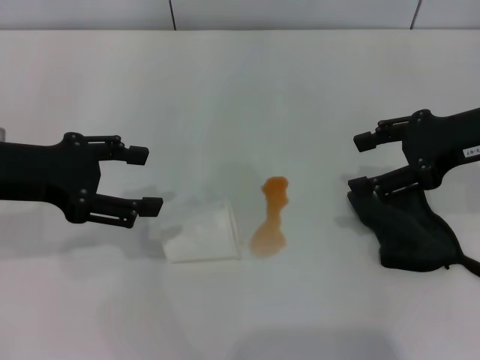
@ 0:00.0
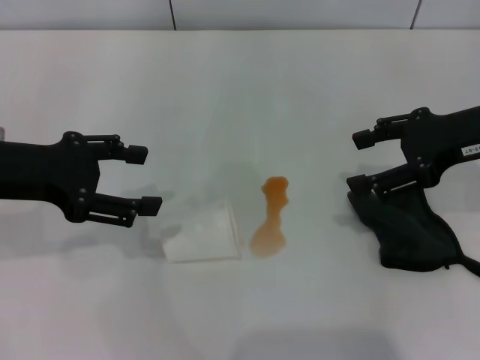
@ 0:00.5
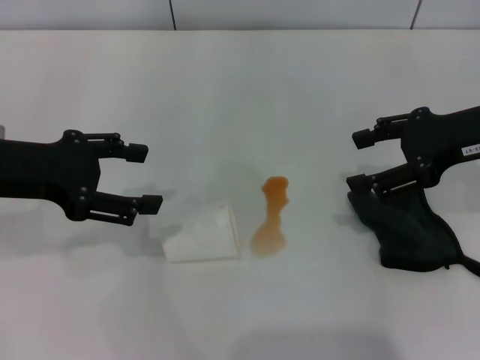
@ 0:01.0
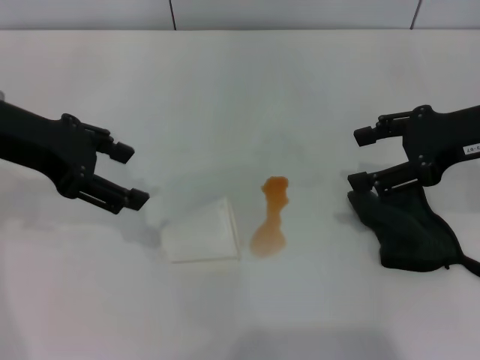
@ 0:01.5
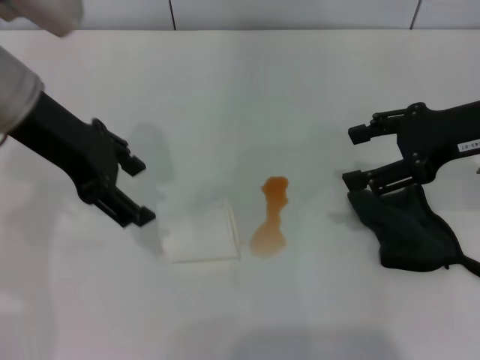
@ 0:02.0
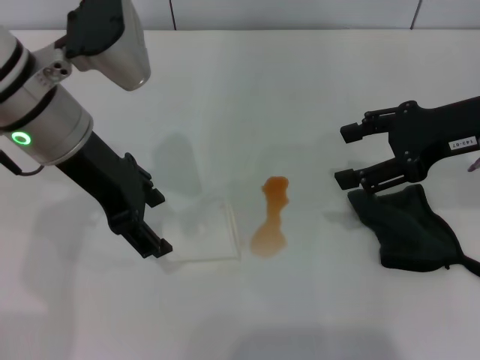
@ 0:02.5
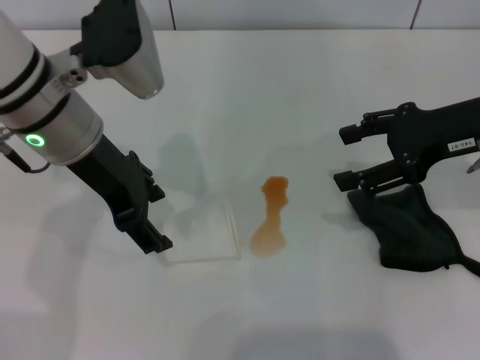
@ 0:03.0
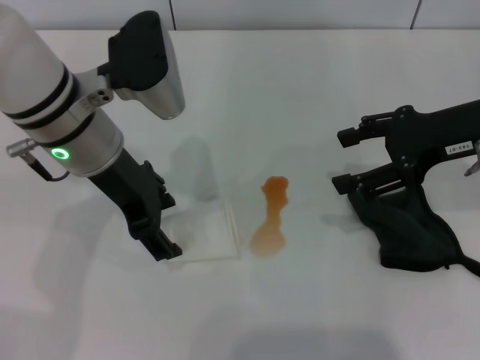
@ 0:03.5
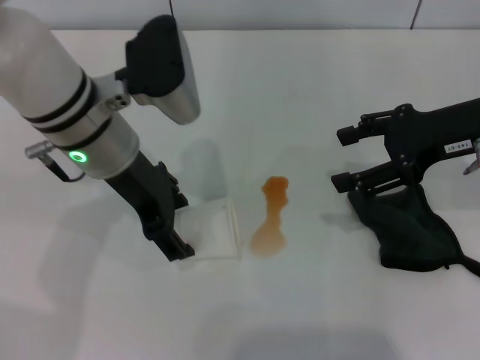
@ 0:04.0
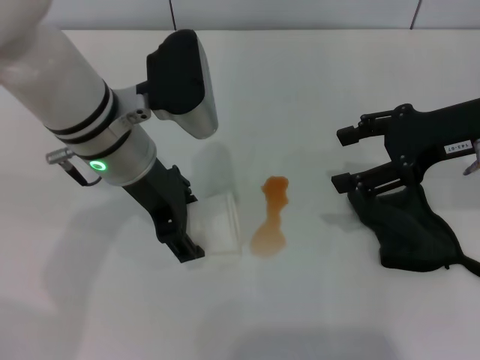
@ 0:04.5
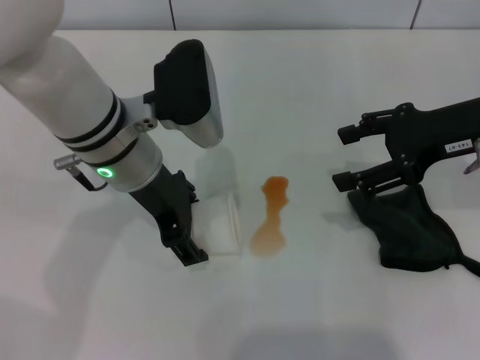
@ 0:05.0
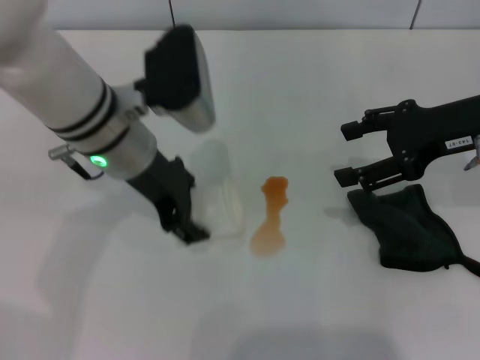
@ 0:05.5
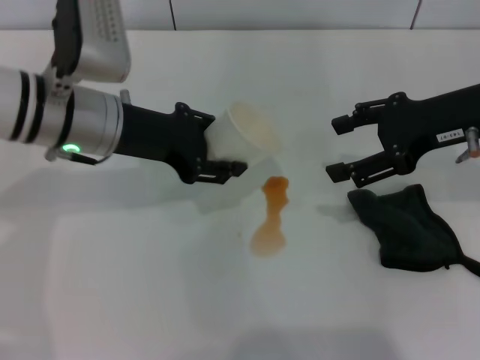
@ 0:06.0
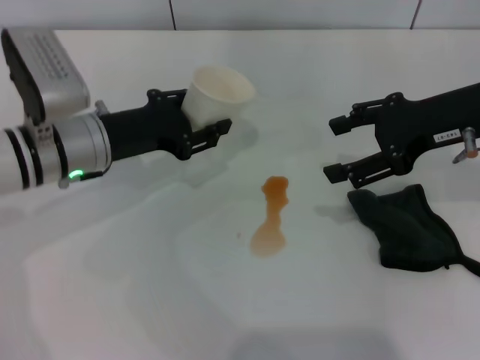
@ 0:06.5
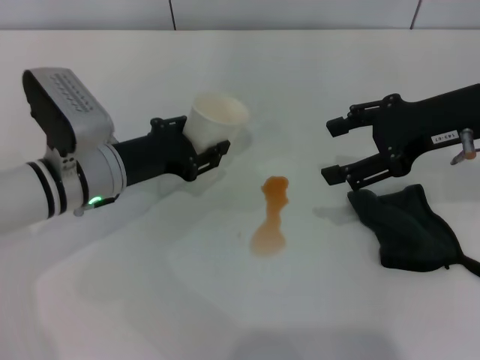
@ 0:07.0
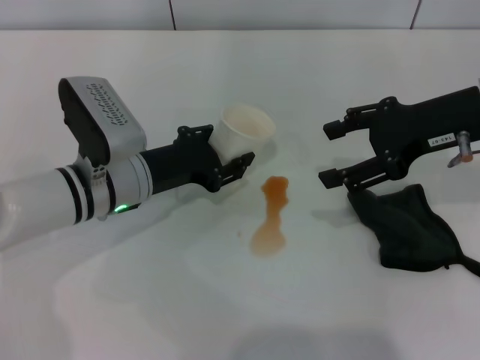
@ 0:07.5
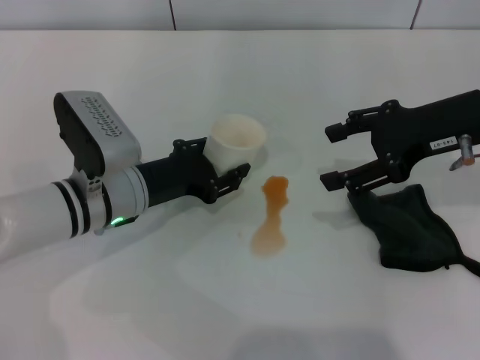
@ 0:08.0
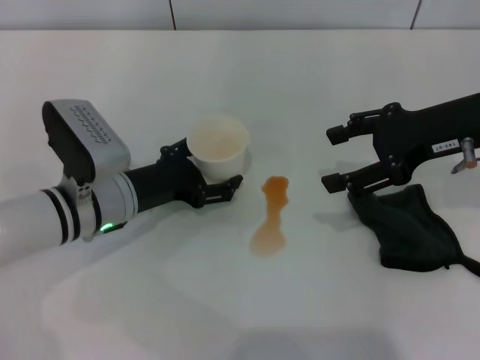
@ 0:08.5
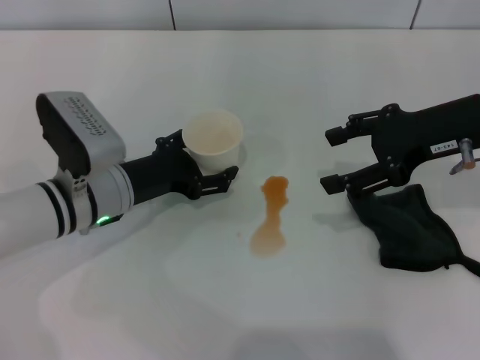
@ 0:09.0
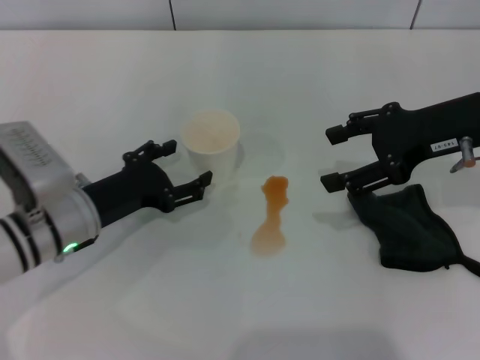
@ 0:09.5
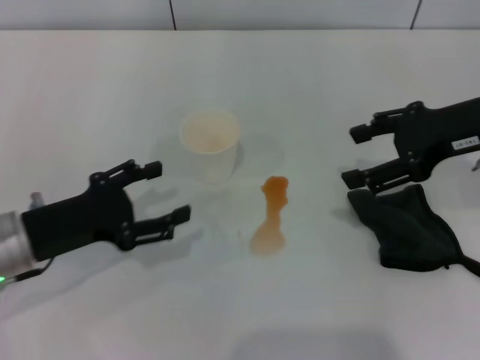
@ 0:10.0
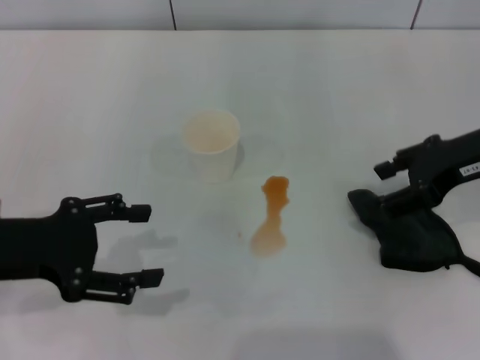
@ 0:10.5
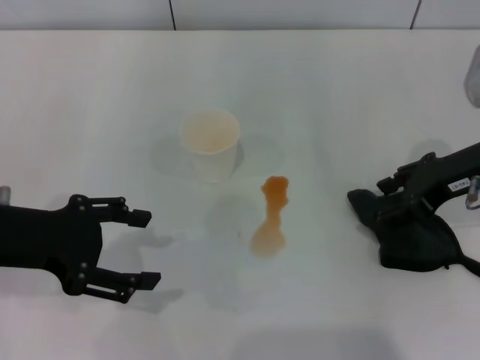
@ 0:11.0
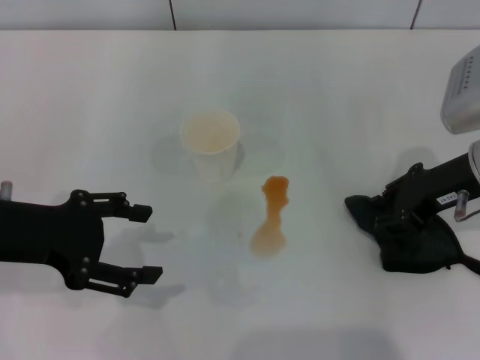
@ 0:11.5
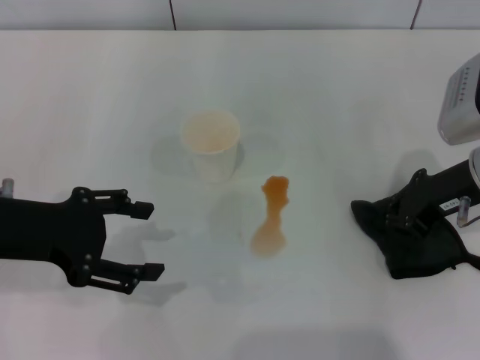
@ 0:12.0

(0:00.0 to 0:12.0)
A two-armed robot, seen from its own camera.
Step, 0:00.0 - 0:05.0: Grasp the paper cup with the left gripper.
Step, 0:05.5 - 0:09.5: Stand the paper cup upright with the left gripper.
Step, 0:10.0 - 0:11.5: Grasp the rag with the right gripper.
0:00.0 - 0:02.0: The left gripper moves to the right and upward, approximately 10 cm.
0:02.0 - 0:04.0: The left gripper travels to the right and downward by some 10 cm.
0:04.0 - 0:06.0: The left gripper closes its fingers.
0:06.0 - 0:08.0: The left gripper goes some 10 cm downward.
0:08.0 - 0:10.0: The left gripper goes about 10 cm to the left and backward, and opens.
0:10.0 - 0:12.0: The left gripper shifts roughly 10 cm upward; the right gripper heads downward, covering about 5 cm, and closes up.

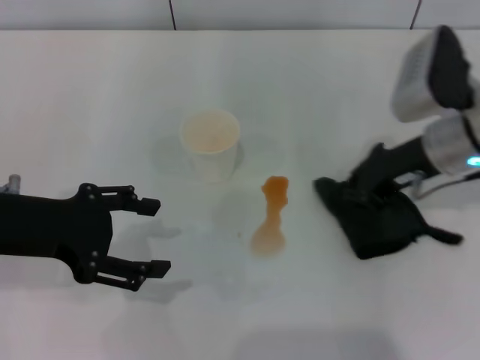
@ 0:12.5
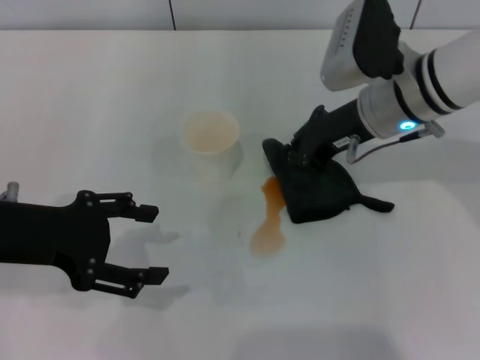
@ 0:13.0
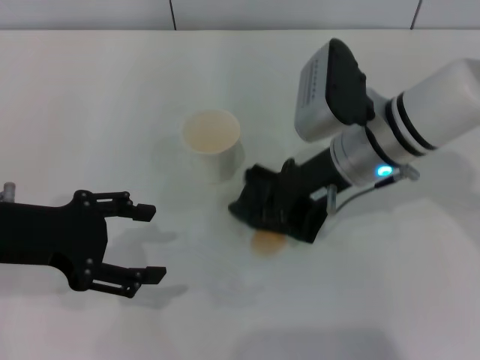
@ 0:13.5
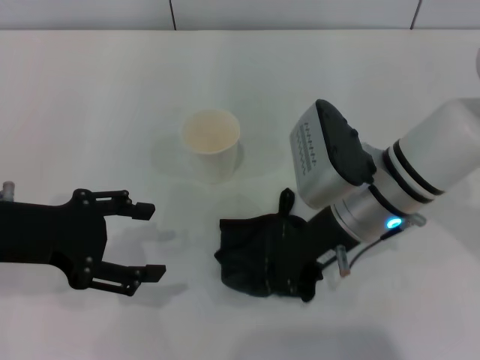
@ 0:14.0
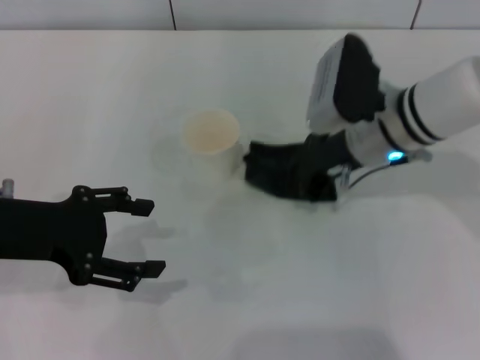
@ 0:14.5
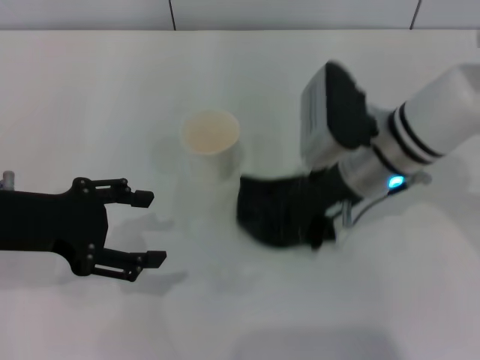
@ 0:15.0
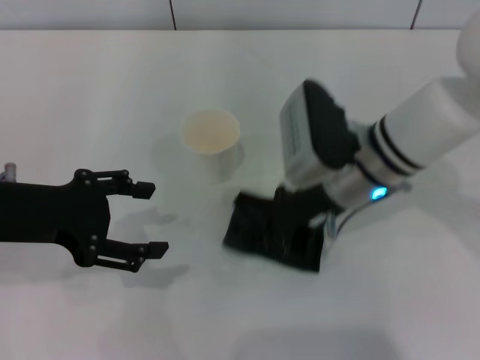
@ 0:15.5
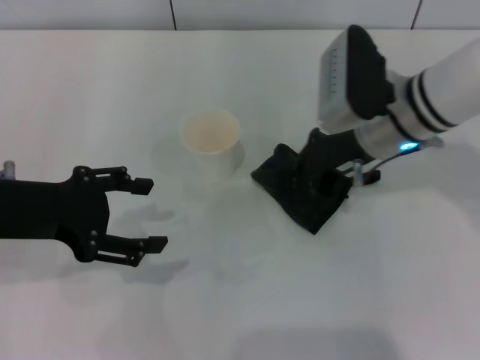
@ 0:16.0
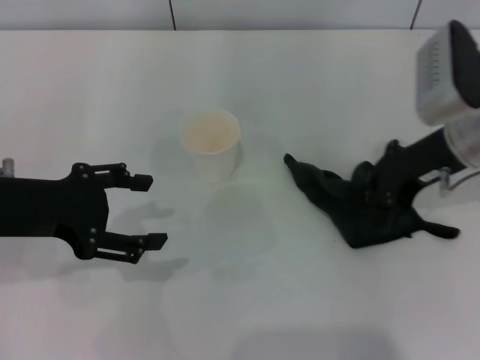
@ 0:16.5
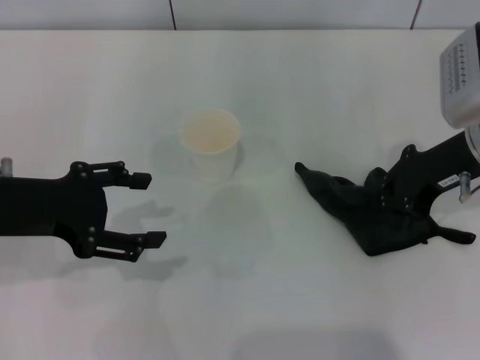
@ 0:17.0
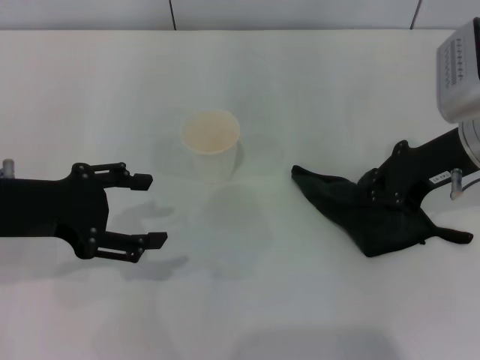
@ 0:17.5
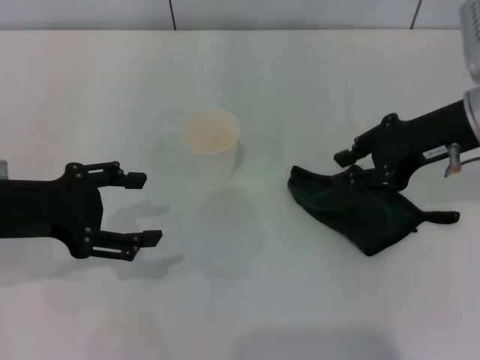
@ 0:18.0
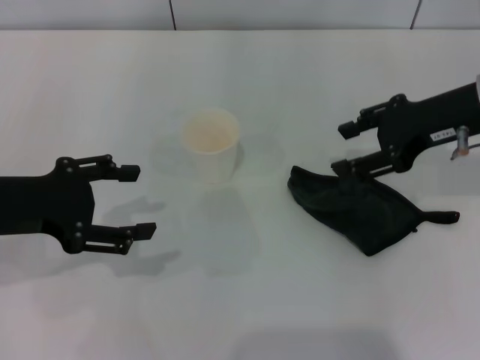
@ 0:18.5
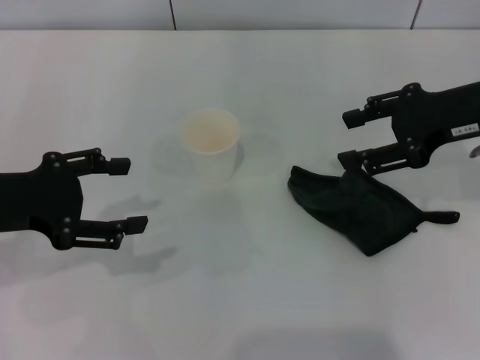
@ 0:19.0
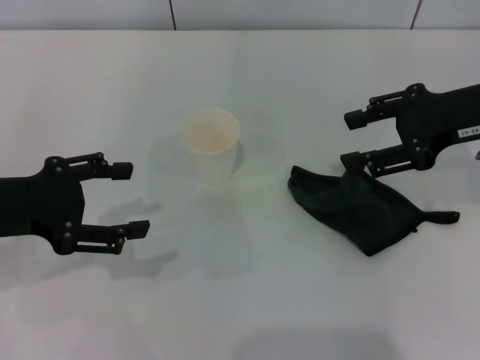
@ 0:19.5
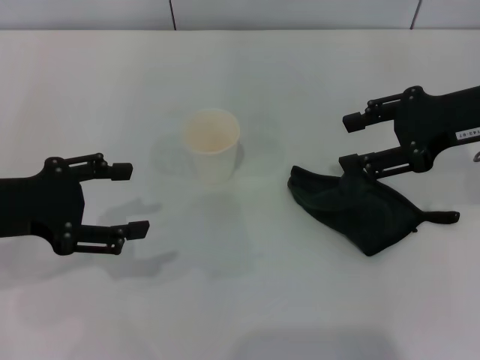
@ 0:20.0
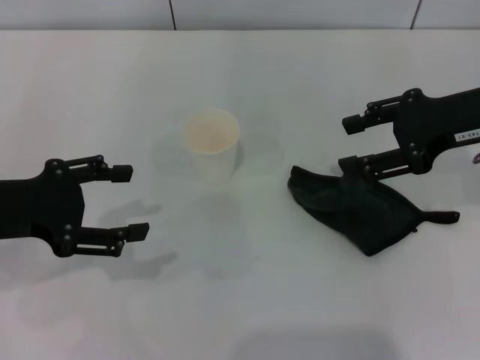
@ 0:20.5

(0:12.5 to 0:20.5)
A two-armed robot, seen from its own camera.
Step, 0:12.5 - 0:17.0: Wipe the stains off the table with the right gripper.
Step, 0:17.5 - 0:18.0: Place the rag on the table with the right gripper.
0:12.5 - 0:14.5: The right gripper shifts approximately 5 cm to the left.
0:14.5 - 0:16.5: The right gripper is displaced to the right by some 10 cm.
0:16.5 - 0:18.5: The right gripper opens up.
0:18.5 - 0:20.5: The grippers make only small movements.
